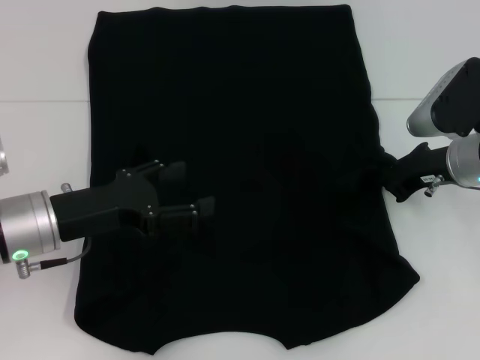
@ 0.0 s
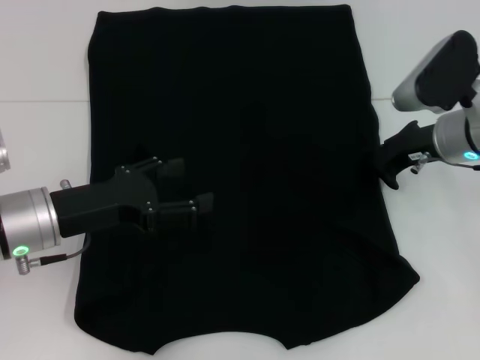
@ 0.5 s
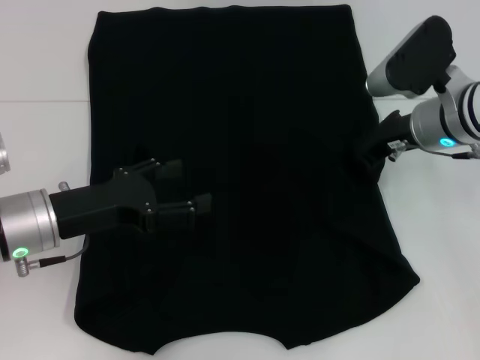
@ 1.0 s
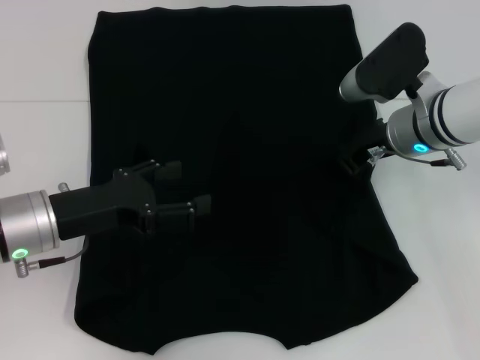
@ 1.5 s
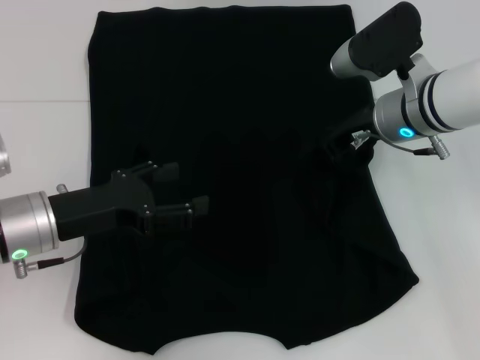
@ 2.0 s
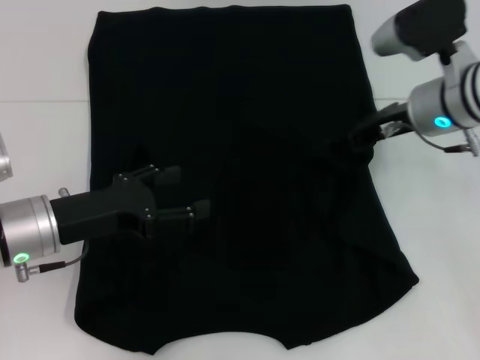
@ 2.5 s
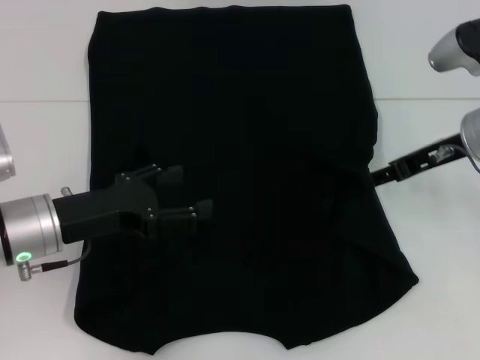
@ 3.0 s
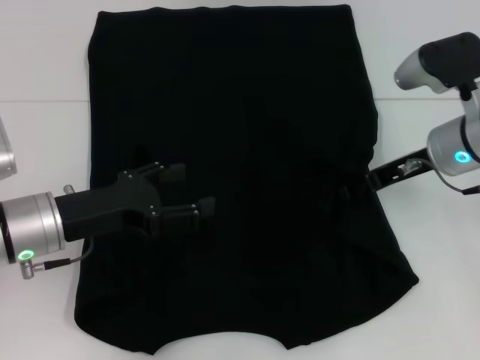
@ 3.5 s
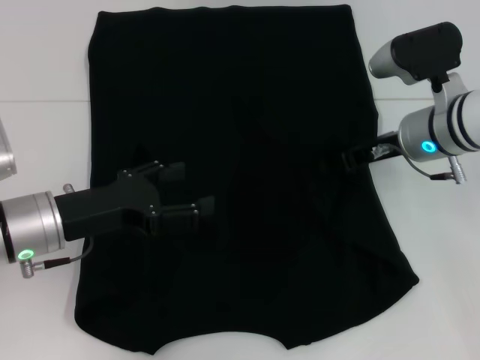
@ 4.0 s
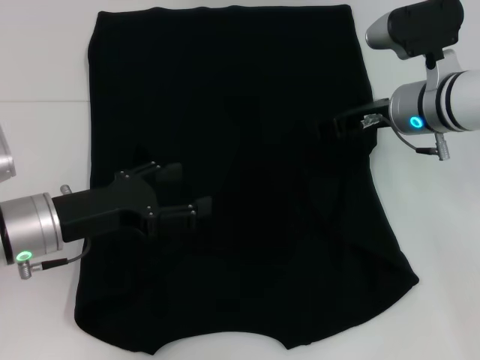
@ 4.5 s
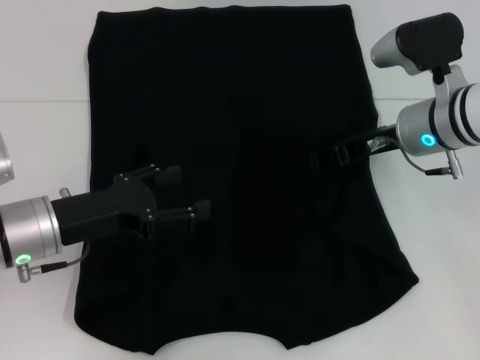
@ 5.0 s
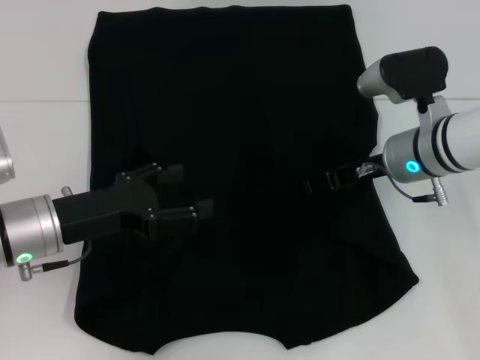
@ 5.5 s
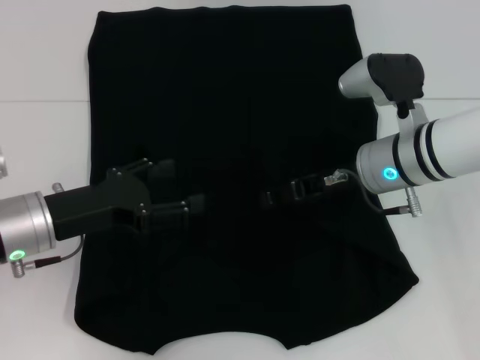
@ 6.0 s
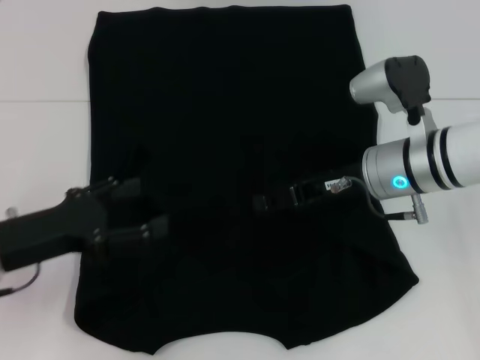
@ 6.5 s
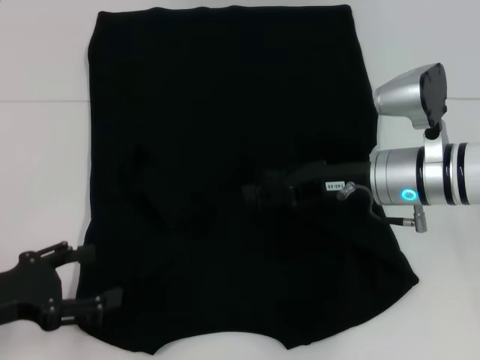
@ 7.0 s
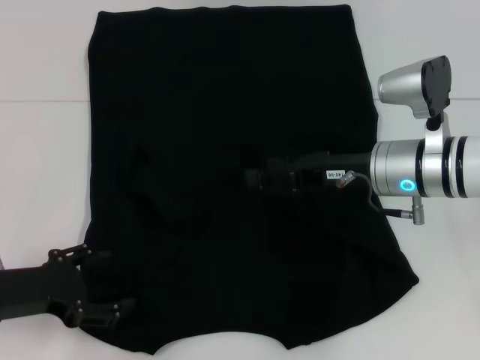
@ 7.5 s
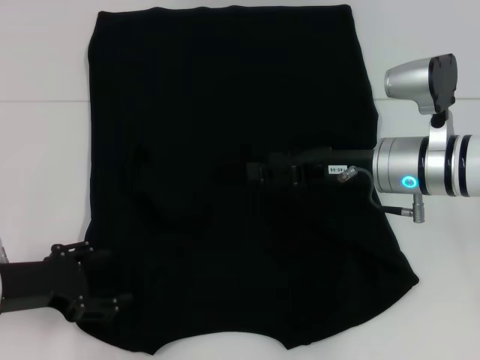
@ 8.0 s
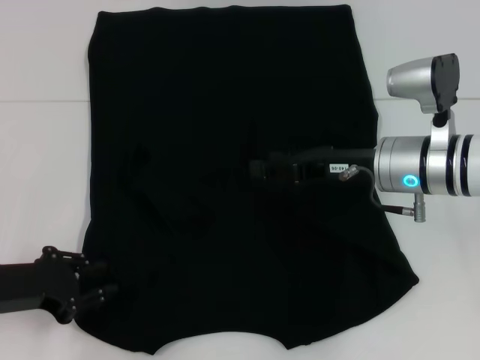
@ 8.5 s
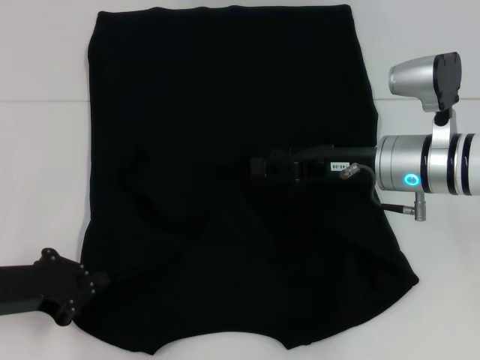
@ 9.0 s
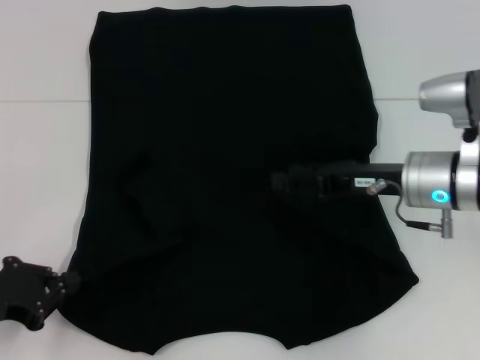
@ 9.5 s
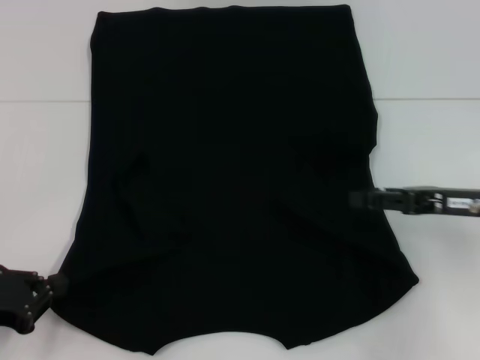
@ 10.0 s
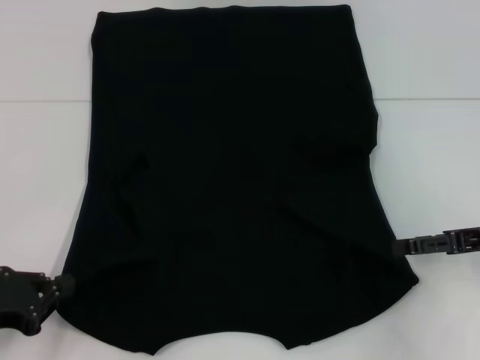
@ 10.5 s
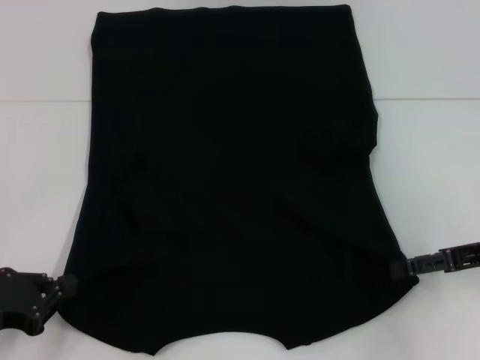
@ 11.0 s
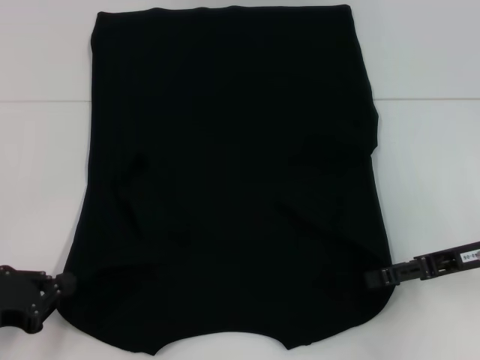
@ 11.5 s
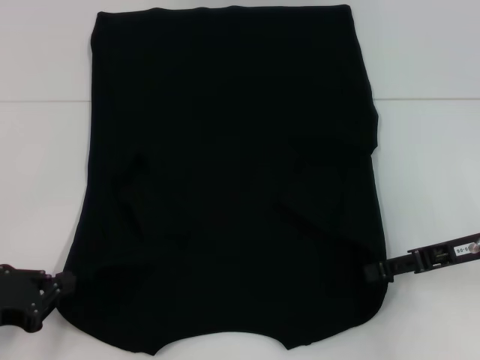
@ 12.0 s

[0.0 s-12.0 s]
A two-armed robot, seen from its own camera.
Step, 0.0 to 2.5 s: Fold the bottom right sleeve with your right hand.
0.0 to 2.0 s: The right gripper moves to the left, some 10 cm.
2.0 to 4.0 s: The right gripper reaches roughly 10 cm to the right, then returns, and opens up.
4.0 to 6.0 s: The grippers make only small movements.
8.0 to 10.0 s: The right gripper is displaced to the right by roughly 10 cm, while the left gripper moves about 5 cm, and closes.

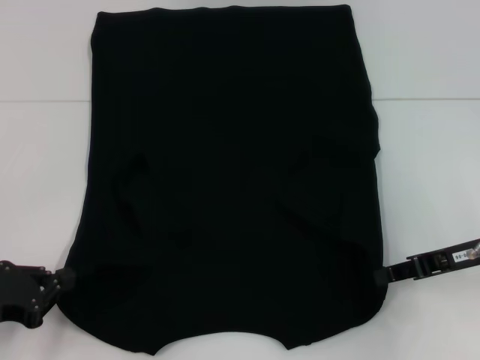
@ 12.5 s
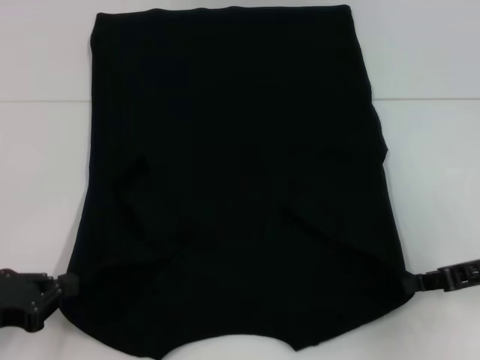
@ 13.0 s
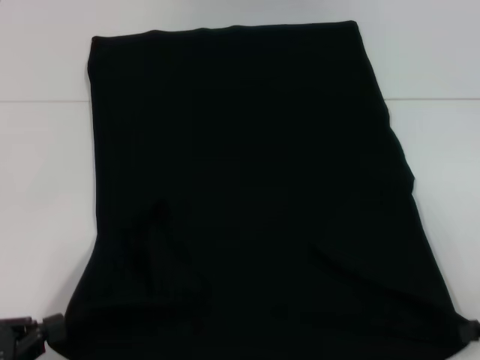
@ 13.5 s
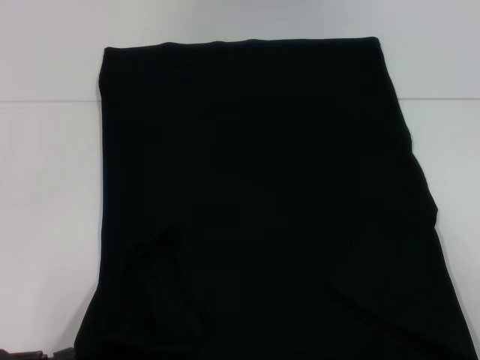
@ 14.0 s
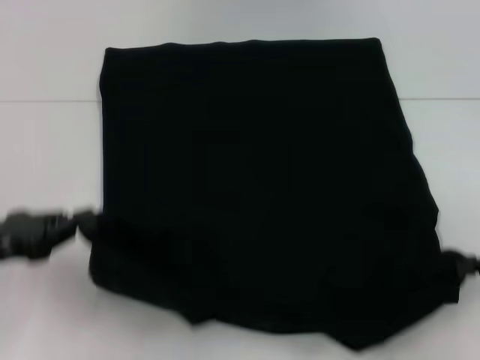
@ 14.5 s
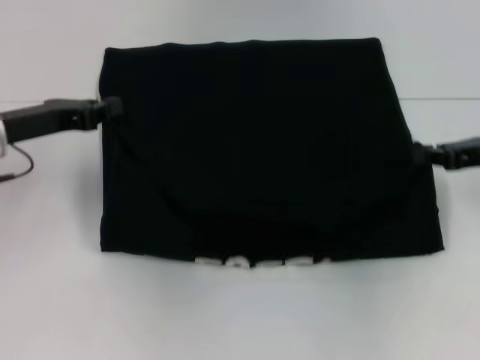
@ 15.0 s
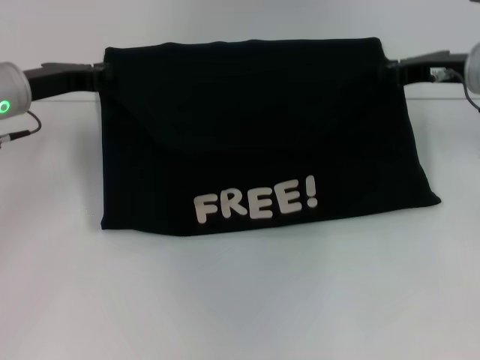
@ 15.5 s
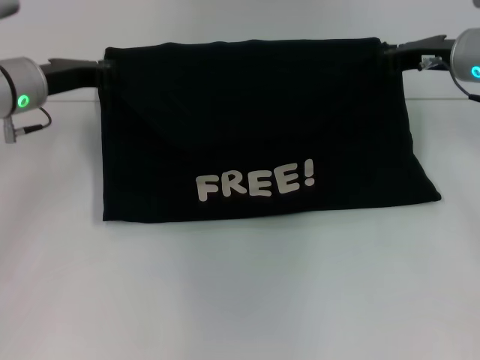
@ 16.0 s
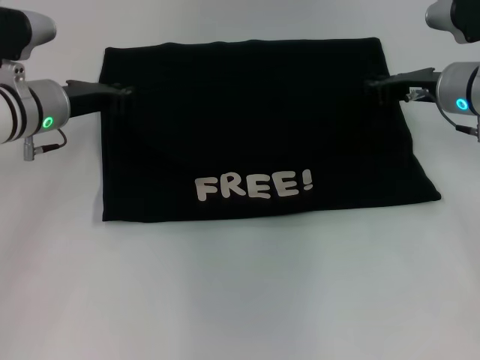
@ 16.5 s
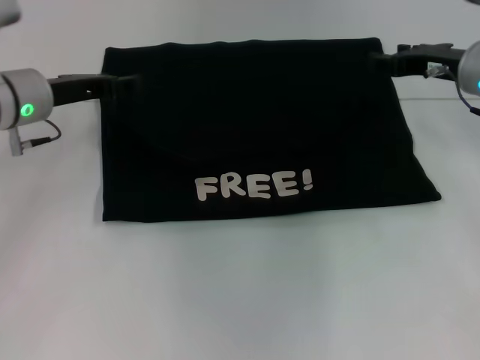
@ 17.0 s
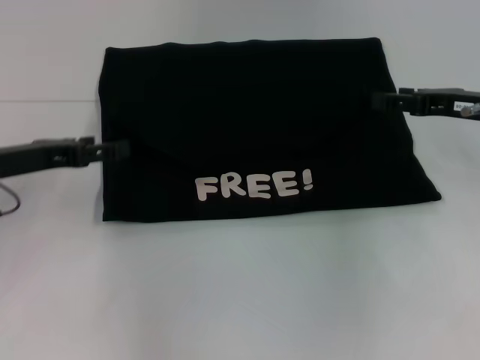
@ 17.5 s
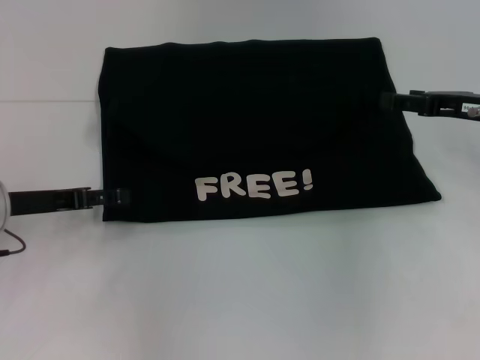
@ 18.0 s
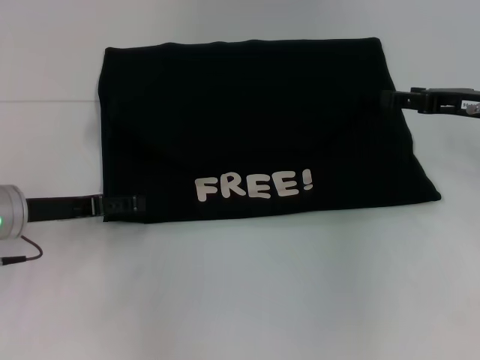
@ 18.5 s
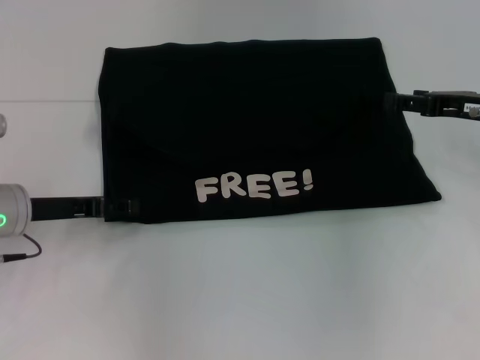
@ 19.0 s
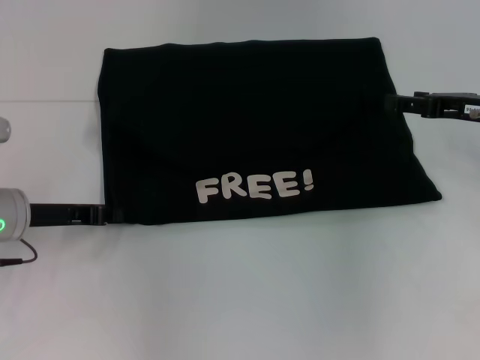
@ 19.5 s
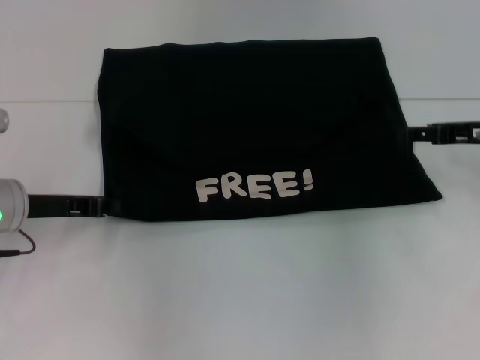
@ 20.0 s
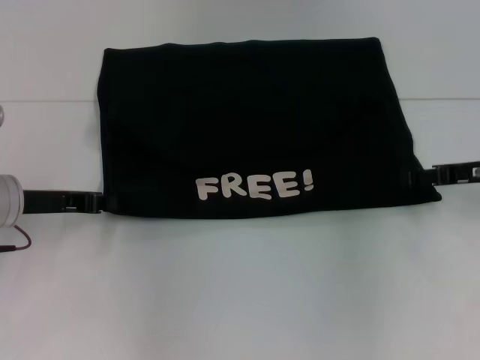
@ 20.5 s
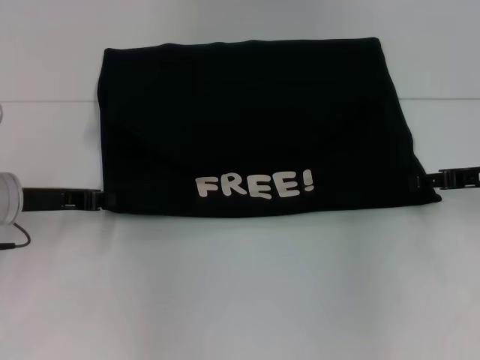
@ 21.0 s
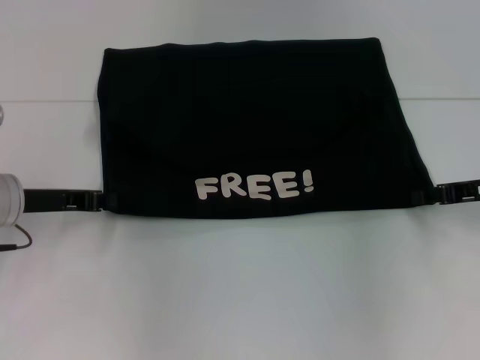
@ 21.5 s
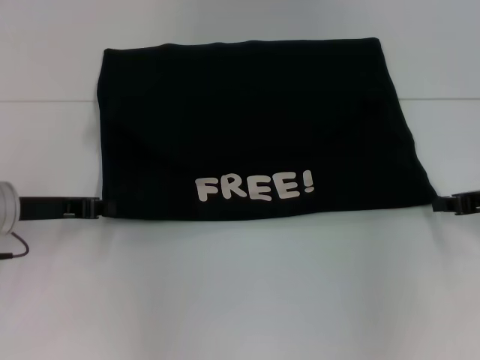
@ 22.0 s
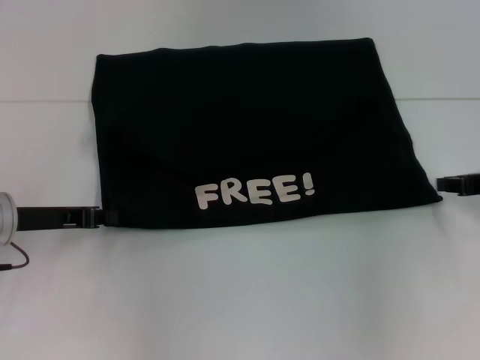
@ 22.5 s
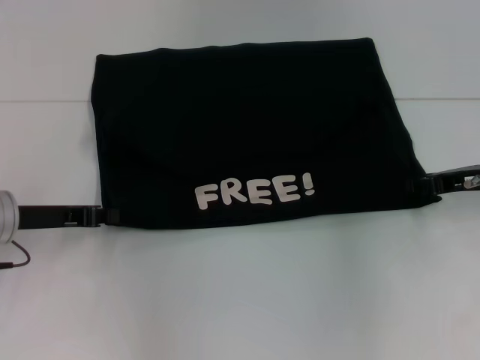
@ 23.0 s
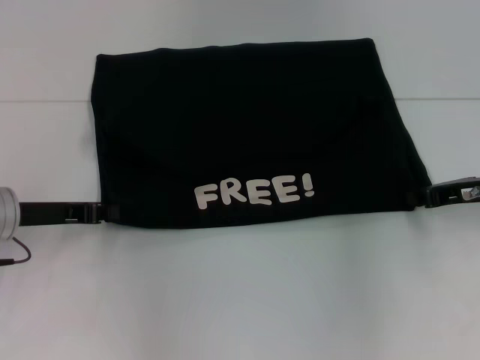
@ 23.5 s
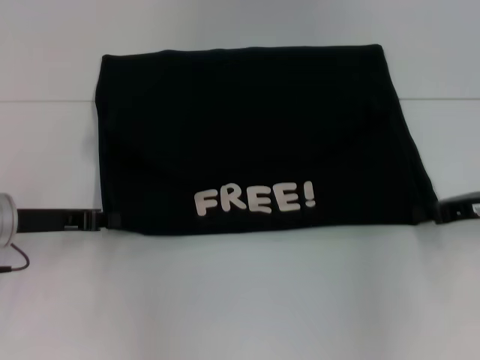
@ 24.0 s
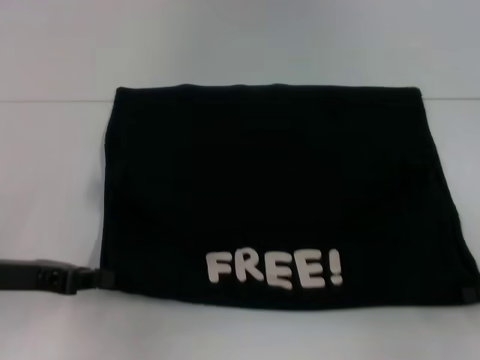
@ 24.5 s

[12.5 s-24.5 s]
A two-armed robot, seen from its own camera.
Step, 13.5 to 16.5 s: Fold the clothes with your left hand.
Step, 13.5 to 16.5 s: Fold the clothes with your right hand.
12.5 to 14.5 s: The right gripper is displaced to the right and backward by some 10 cm. The left gripper goes backward and returns, roughly 10 cm each way.
14.5 to 16.5 s: The left gripper goes some 20 cm forward and to the right, while the right gripper heads forward and to the left, covering about 25 cm.
16.5 to 18.5 s: The right gripper moves to the right, roughly 5 cm, and opens its fingers; the left gripper moves backward, approximately 10 cm, and opens up.
18.5 to 20.5 s: The left gripper closes.
20.5 to 22.5 s: The right gripper closes its fingers.
22.5 to 24.5 s: The right gripper moves backward, about 10 cm. The left gripper goes roughly 5 cm backward.

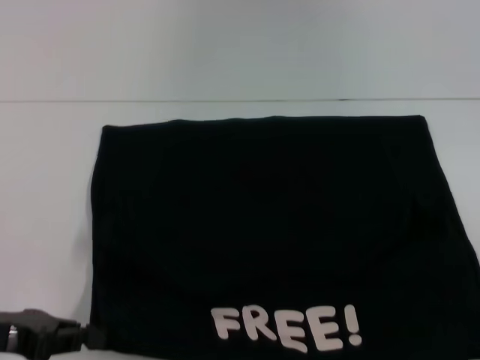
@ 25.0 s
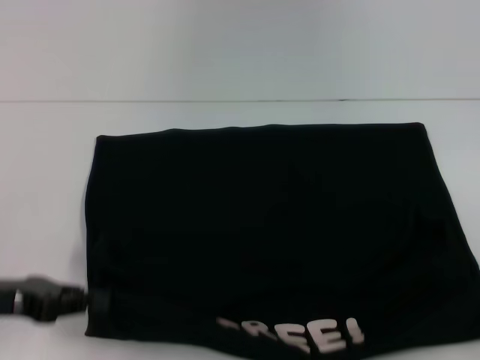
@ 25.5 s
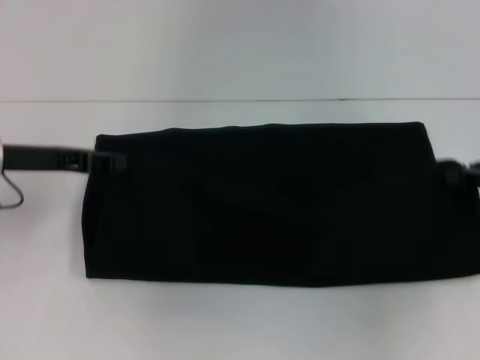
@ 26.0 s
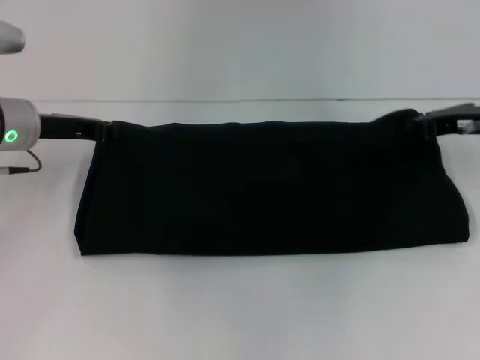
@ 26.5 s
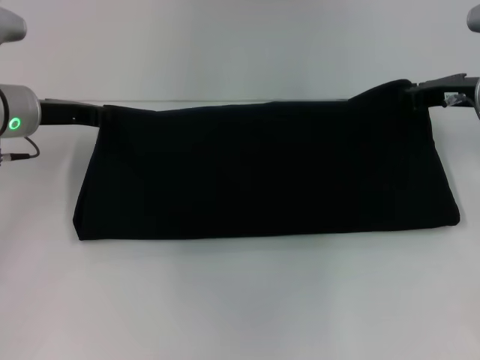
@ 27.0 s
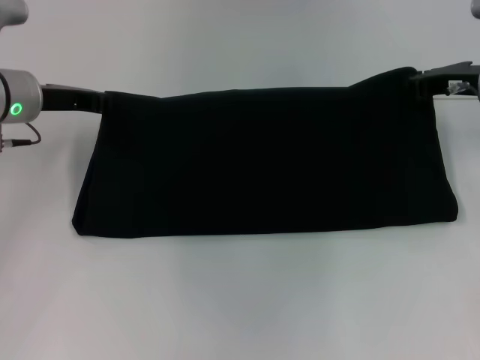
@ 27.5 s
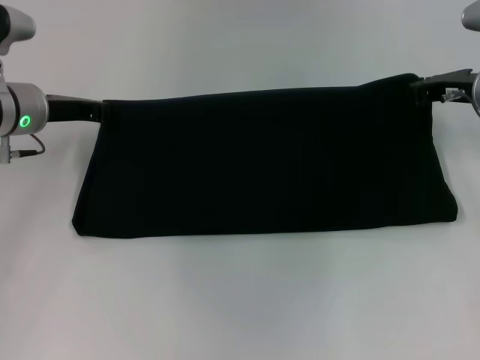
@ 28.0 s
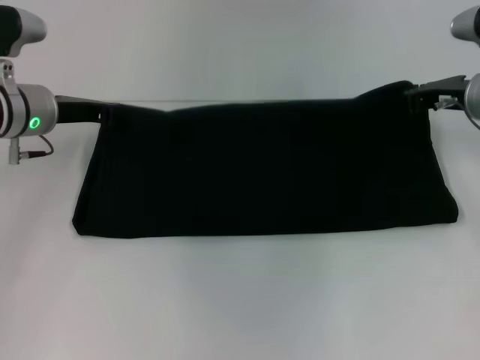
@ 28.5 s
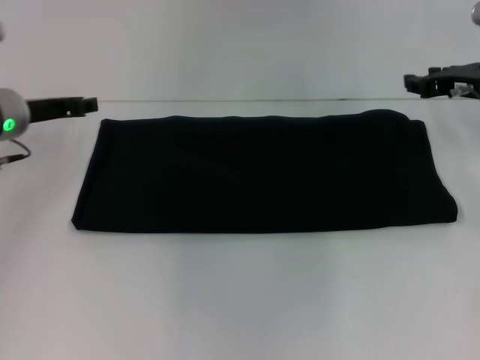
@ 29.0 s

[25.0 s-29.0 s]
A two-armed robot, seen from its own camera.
Step, 25.5 to 29.0 s: Fold the clothes with your right hand.
25.0 to 27.0 s: The left gripper moves forward, approximately 20 cm; the right gripper is displaced forward and to the left by approximately 25 cm.
27.0 to 29.0 s: The right gripper opens its fingers.
